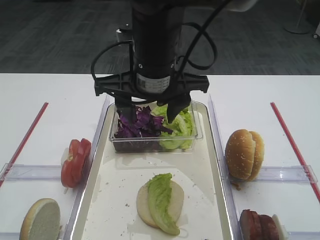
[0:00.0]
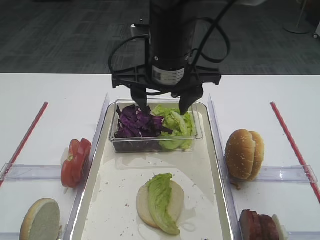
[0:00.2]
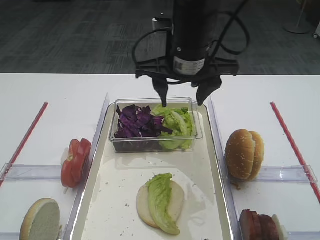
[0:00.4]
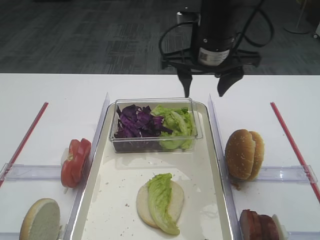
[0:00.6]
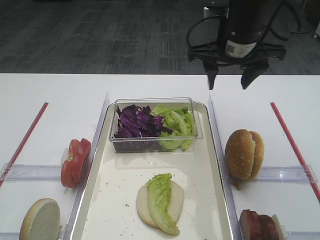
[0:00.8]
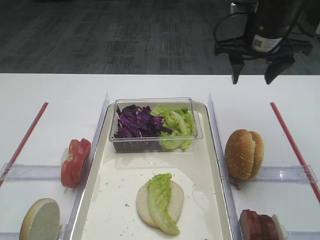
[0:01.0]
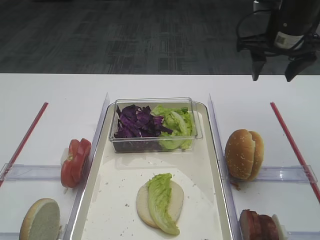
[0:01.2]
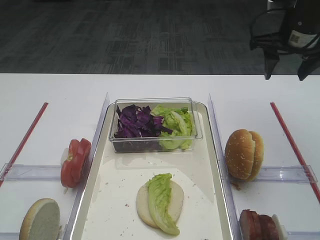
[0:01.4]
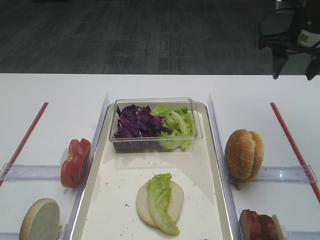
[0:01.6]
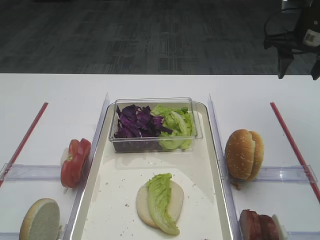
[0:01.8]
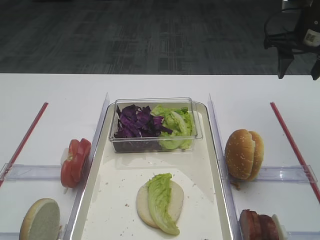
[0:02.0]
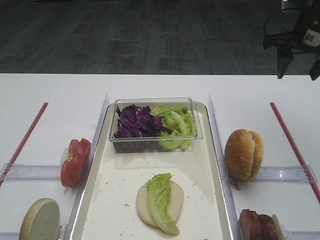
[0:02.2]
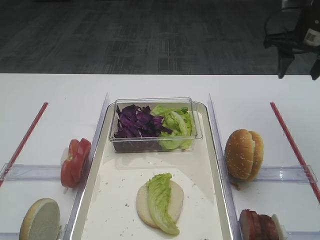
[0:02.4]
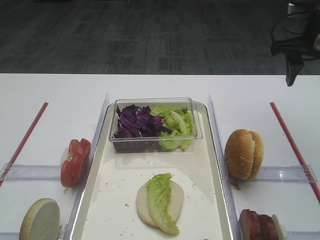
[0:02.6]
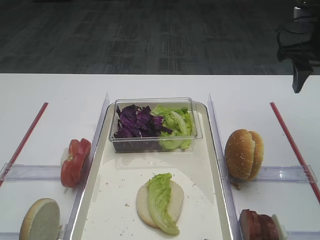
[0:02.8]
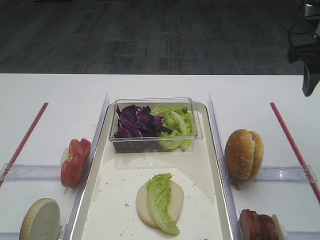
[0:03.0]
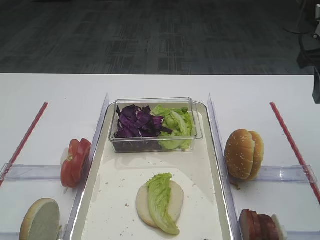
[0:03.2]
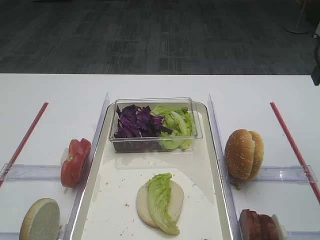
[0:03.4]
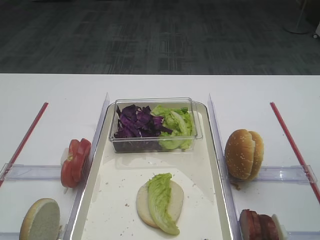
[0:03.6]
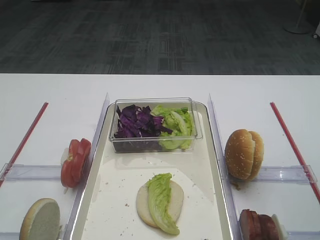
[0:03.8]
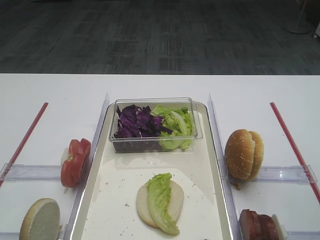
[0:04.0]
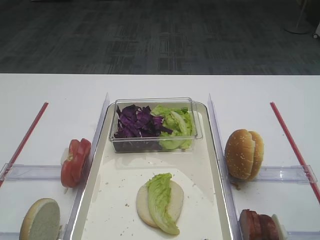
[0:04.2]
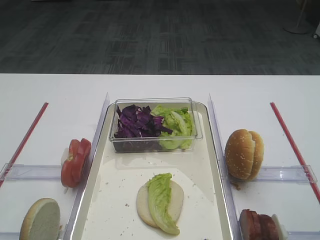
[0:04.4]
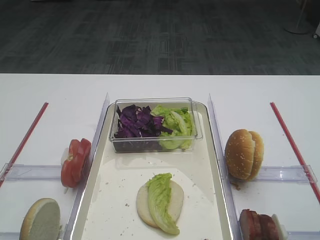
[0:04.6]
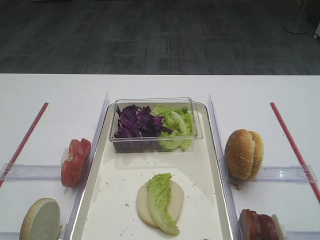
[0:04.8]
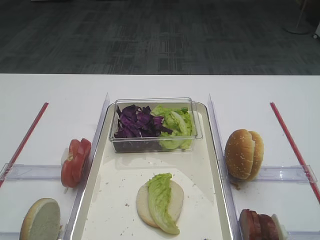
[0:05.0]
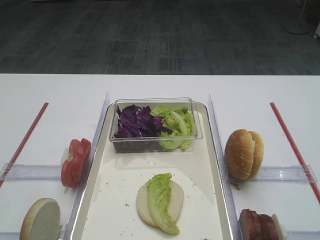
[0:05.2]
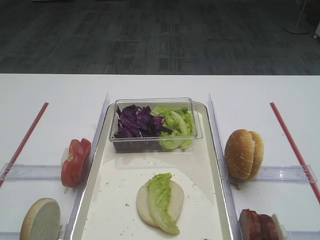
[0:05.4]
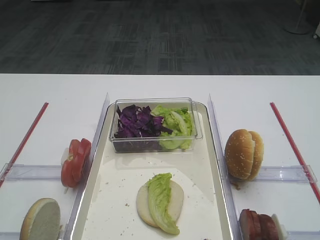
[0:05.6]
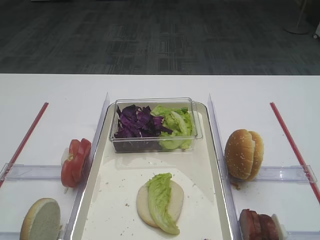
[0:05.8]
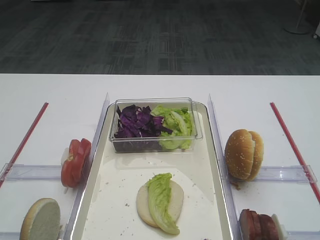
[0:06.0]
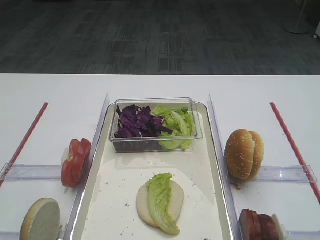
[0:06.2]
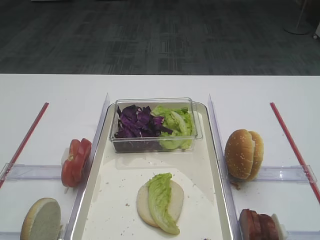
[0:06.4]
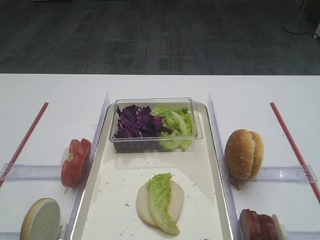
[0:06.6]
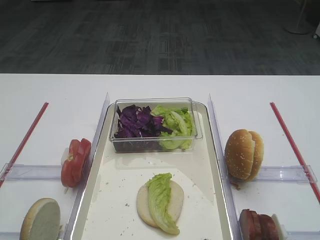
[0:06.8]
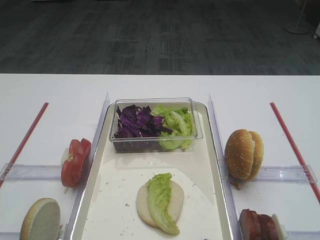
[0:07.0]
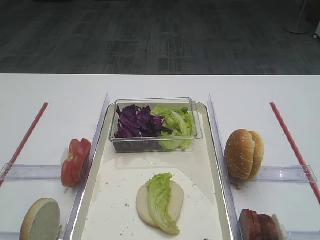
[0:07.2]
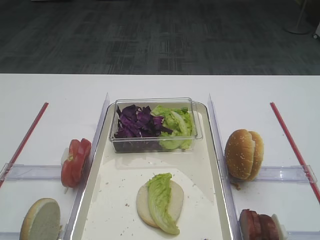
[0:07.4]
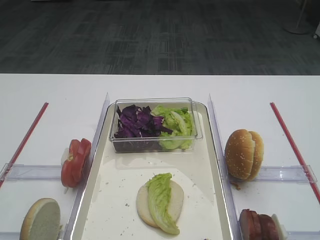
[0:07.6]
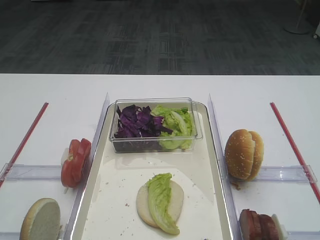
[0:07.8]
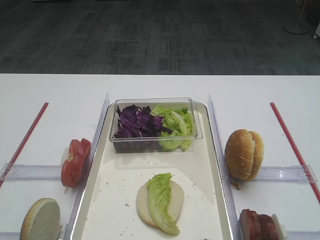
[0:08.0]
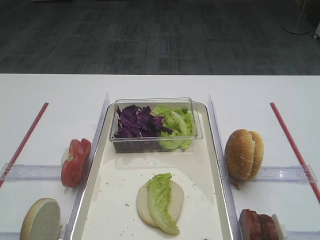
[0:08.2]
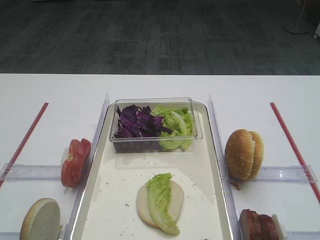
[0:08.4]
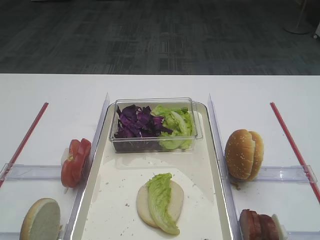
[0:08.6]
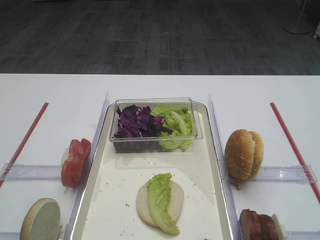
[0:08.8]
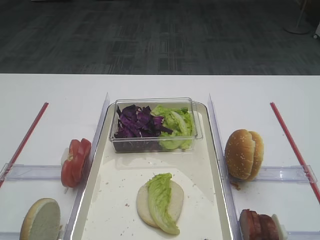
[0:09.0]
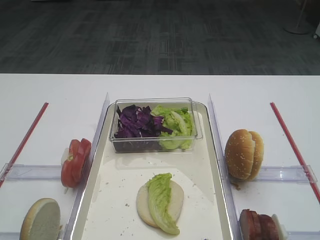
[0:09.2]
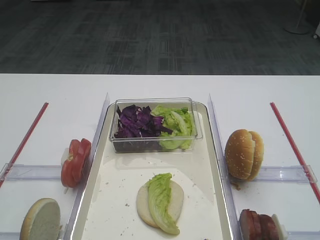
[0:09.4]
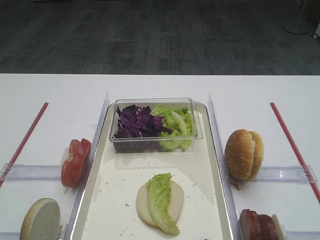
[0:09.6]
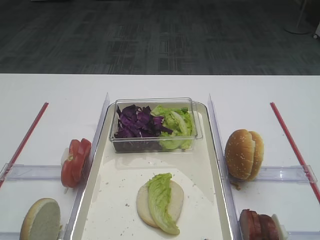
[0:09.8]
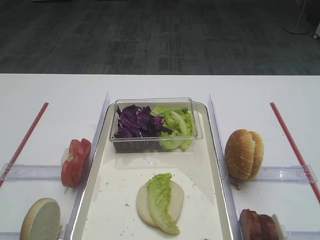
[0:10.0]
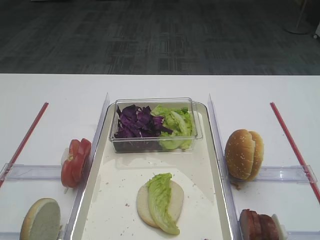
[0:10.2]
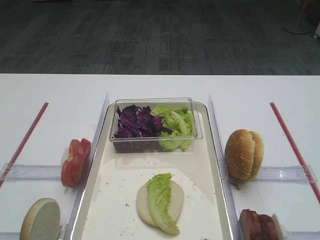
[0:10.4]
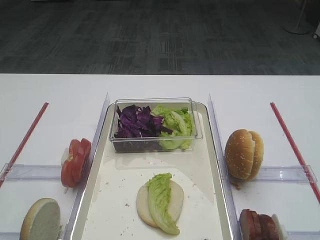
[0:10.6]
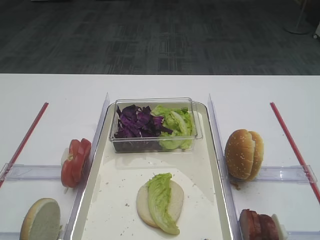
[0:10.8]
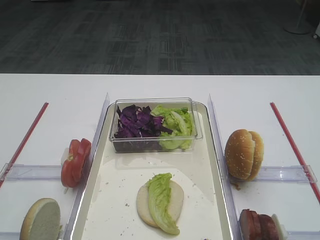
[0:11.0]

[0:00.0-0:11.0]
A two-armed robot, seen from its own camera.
0:00.0 to 0:01.6: The right gripper moves to the right and forward, approximately 30 cm.
0:01.6 to 0:03.2: The right gripper moves backward, some 10 cm.
0:03.2 to 0:04.8: The right gripper travels backward by approximately 20 cm.
0:06.2 to 0:07.8: The two grippers keep their place.
0:09.4 to 0:11.0: Both grippers stay put.

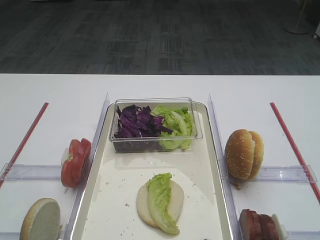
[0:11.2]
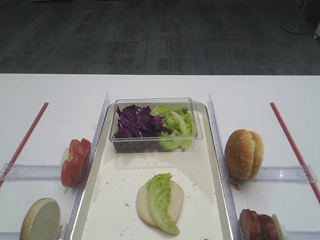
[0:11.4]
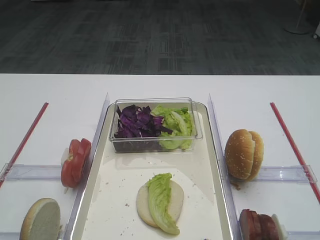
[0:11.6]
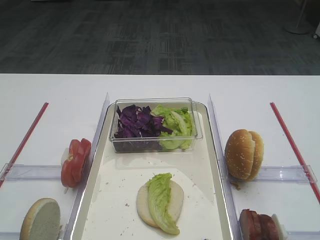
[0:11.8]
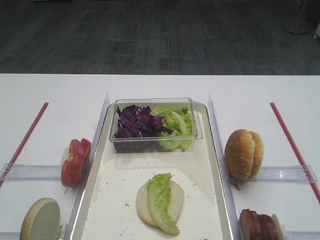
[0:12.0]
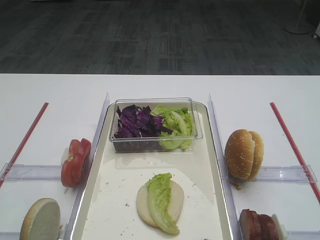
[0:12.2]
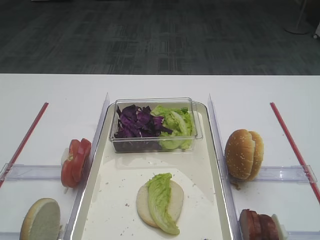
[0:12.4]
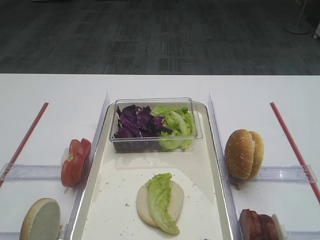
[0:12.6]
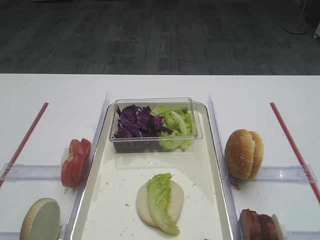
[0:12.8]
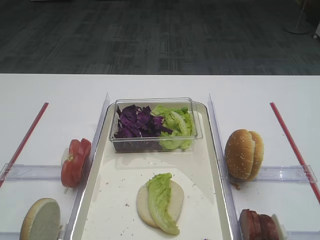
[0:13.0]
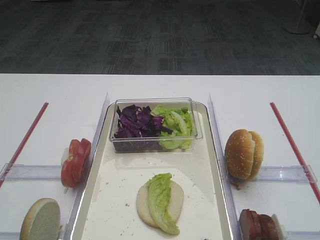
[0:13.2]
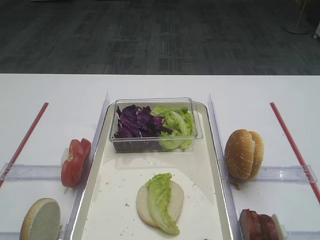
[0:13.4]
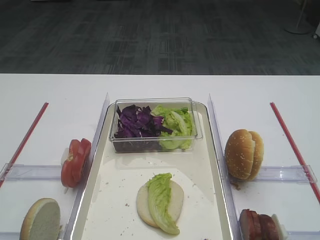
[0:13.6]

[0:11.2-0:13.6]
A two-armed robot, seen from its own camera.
0:11.2 to 0:13.6: Both grippers stay about where they are.

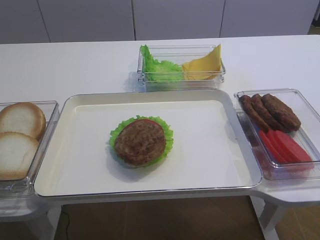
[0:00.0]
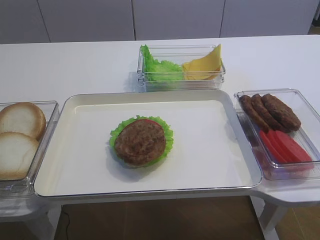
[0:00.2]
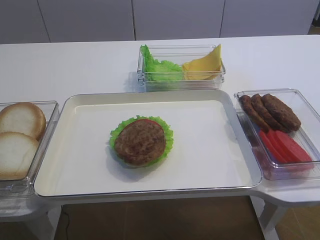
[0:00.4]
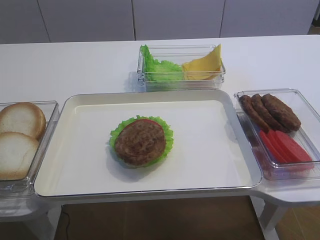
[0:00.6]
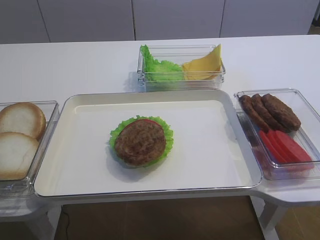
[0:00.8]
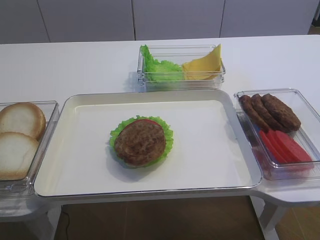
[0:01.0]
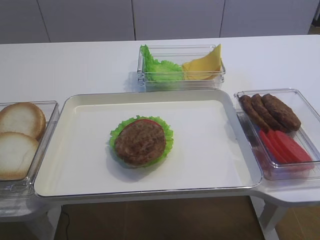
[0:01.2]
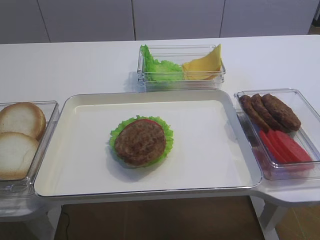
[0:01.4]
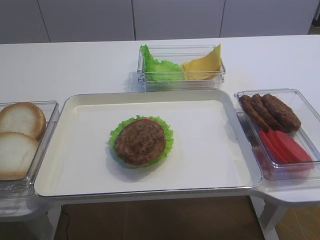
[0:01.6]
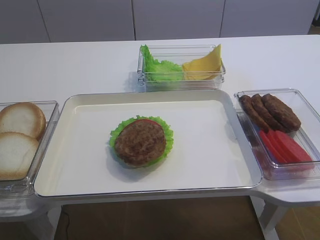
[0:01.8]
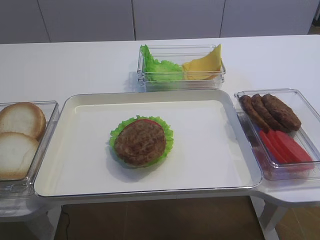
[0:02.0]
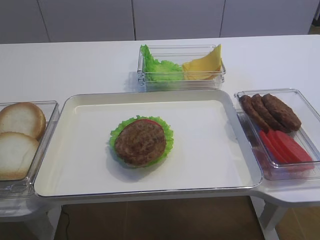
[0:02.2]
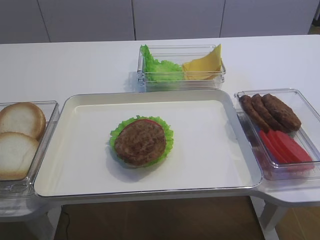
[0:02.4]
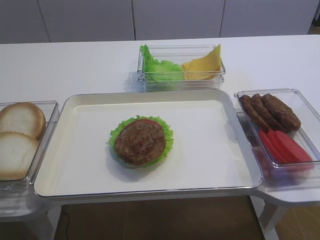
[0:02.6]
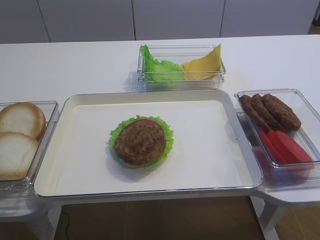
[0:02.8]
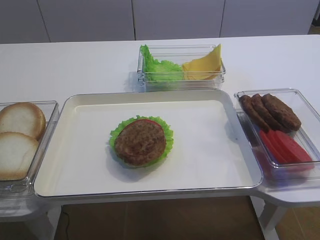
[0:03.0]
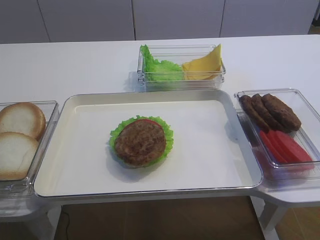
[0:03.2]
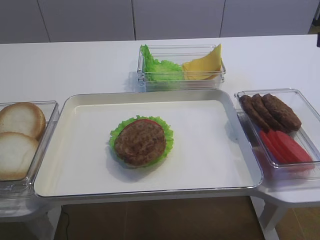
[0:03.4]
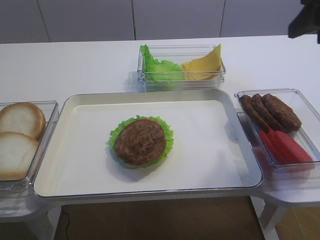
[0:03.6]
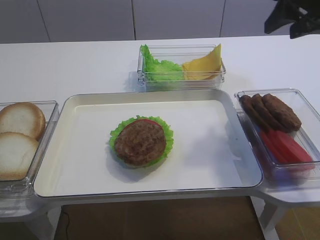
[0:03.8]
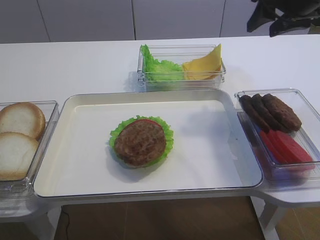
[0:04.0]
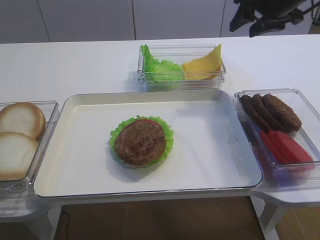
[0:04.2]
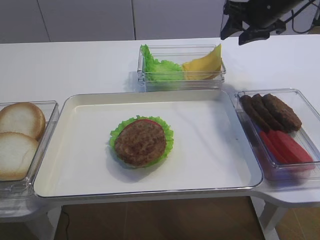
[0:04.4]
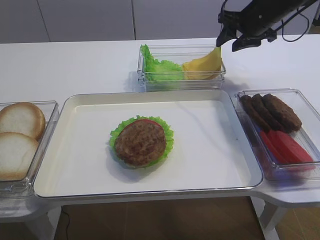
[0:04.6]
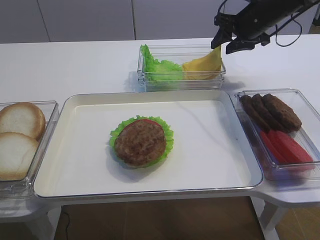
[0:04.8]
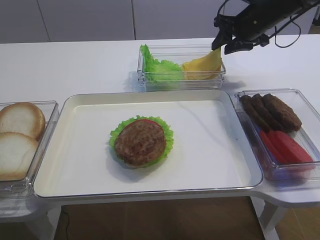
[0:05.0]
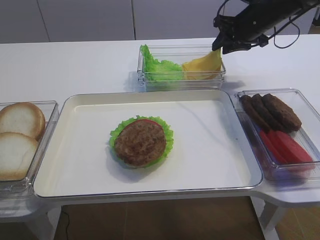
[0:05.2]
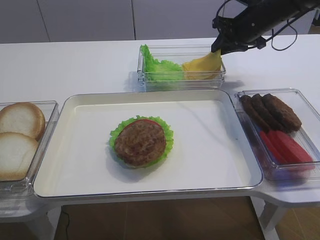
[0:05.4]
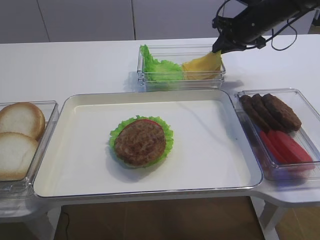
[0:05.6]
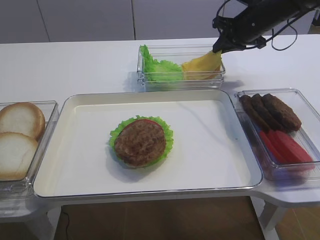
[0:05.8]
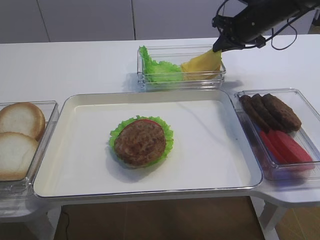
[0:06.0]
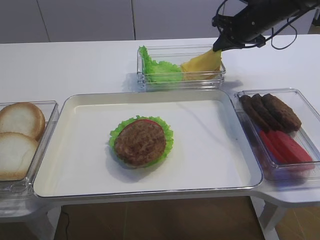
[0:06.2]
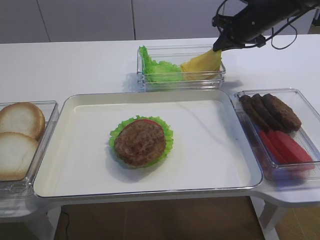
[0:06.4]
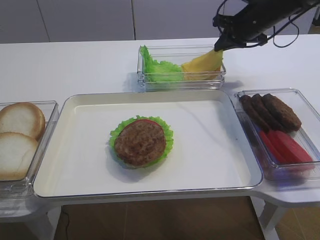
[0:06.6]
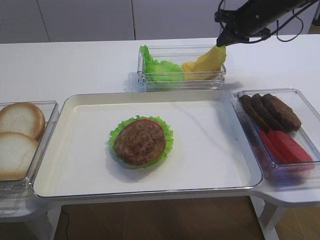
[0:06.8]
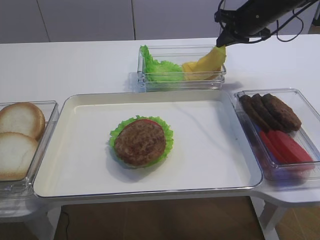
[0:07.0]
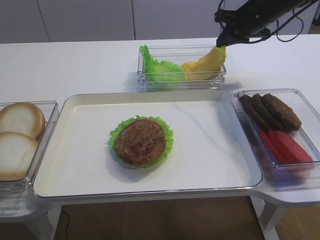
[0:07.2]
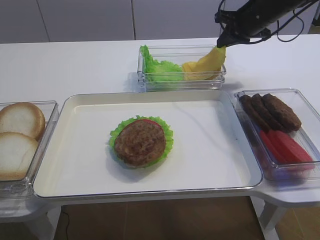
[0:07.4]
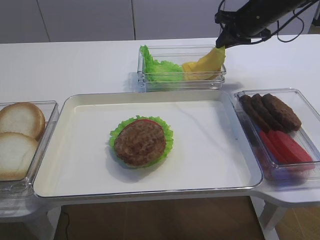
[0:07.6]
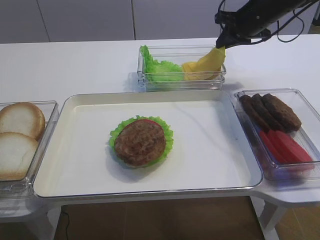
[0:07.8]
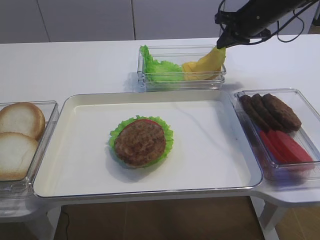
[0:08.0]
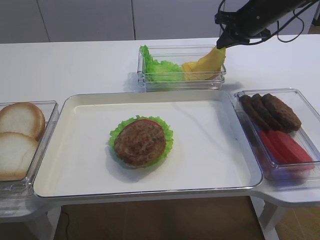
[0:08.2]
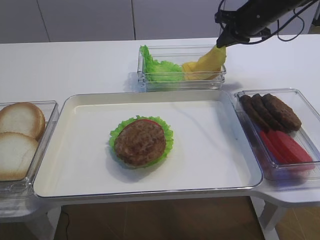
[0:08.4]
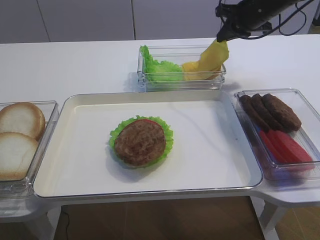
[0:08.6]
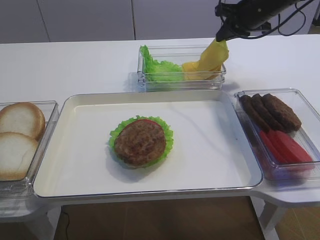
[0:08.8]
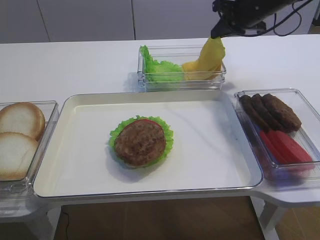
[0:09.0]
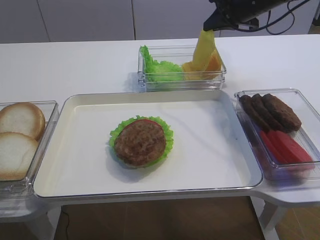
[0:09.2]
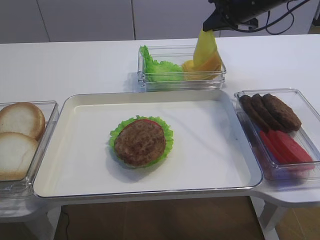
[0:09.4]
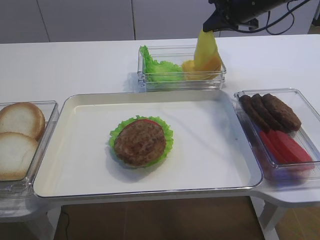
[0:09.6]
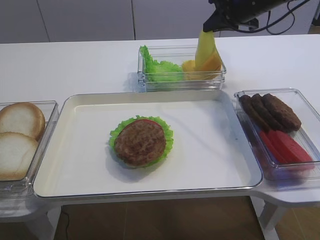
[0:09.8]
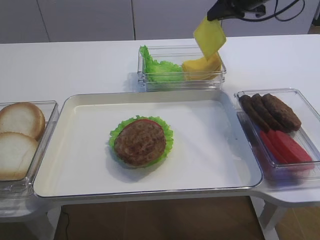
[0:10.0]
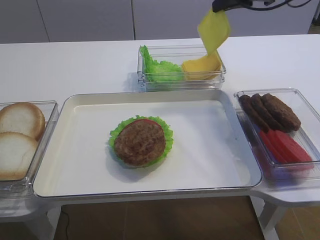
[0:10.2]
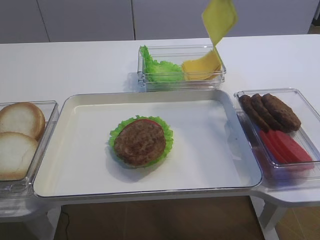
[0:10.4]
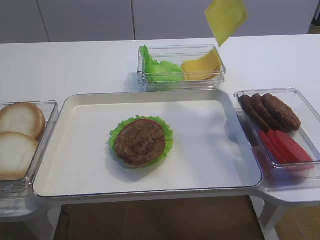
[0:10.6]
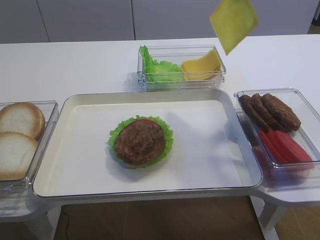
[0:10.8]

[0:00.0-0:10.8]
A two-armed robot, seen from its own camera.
0:01.6 to 0:03.0: The right gripper shifts roughly 10 cm forward and upward.
0:03.0 to 0:04.6: The right gripper travels forward by about 40 cm.
0:04.6 to 0:06.2: The right gripper closes its fingers.
0:06.2 to 0:09.2: The grippers move only a little.
0:09.2 to 0:10.8: The right gripper goes approximately 20 cm backward and upward.
